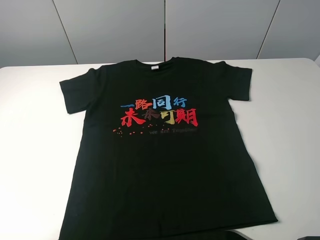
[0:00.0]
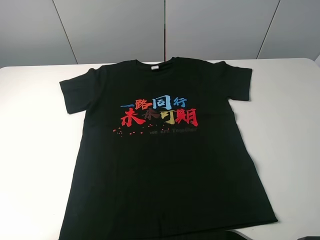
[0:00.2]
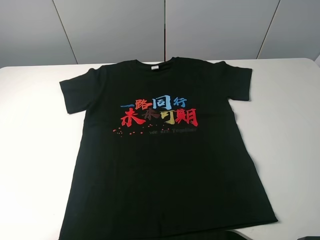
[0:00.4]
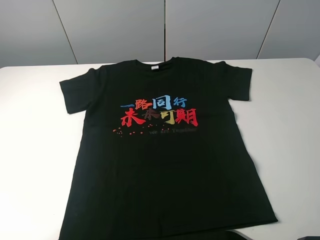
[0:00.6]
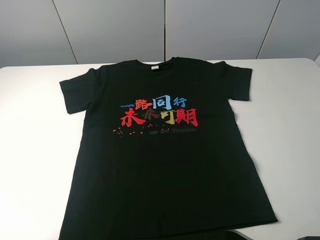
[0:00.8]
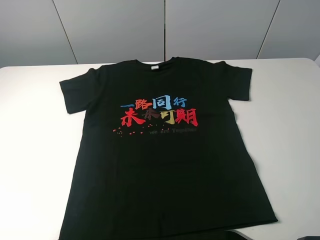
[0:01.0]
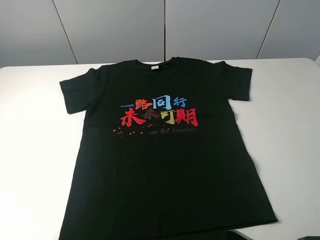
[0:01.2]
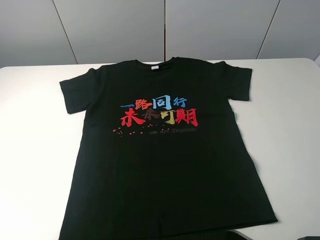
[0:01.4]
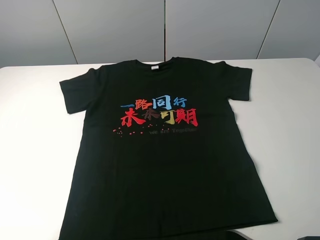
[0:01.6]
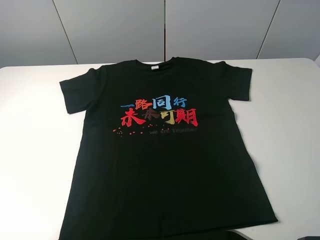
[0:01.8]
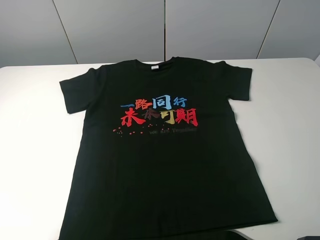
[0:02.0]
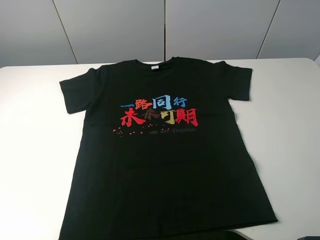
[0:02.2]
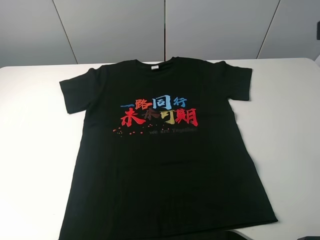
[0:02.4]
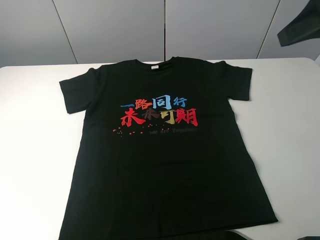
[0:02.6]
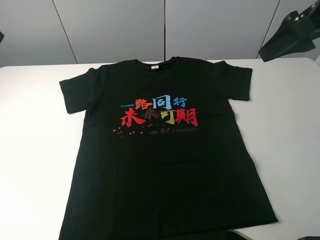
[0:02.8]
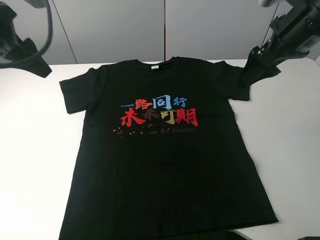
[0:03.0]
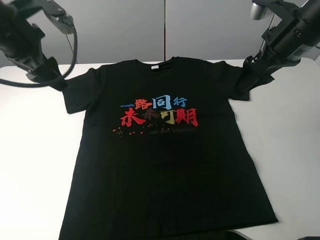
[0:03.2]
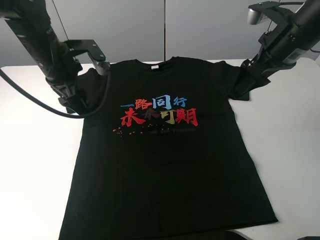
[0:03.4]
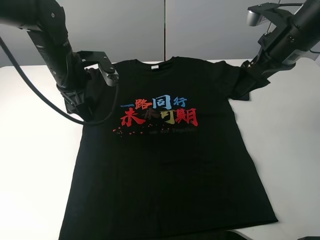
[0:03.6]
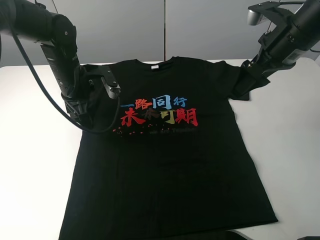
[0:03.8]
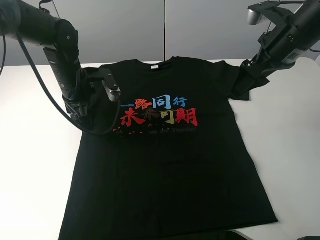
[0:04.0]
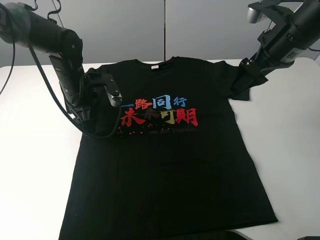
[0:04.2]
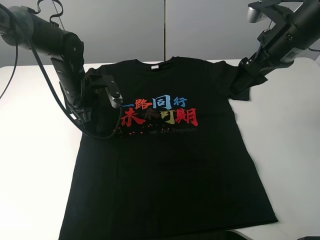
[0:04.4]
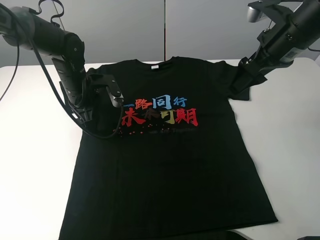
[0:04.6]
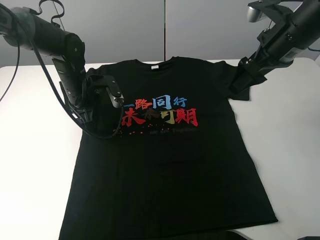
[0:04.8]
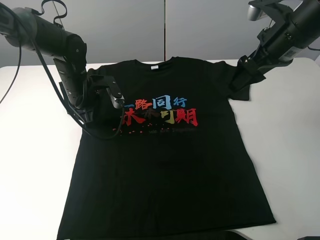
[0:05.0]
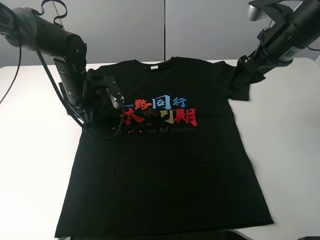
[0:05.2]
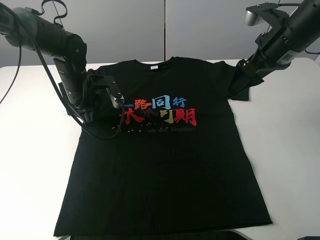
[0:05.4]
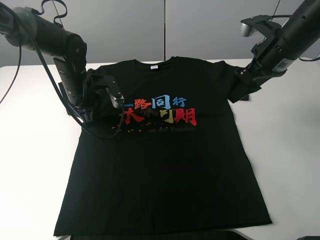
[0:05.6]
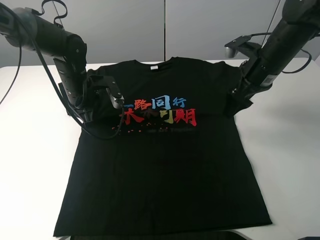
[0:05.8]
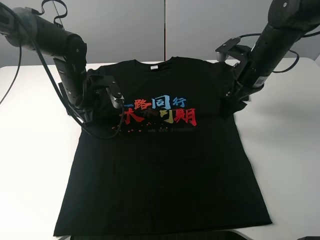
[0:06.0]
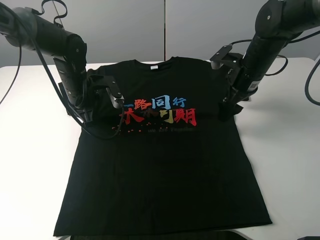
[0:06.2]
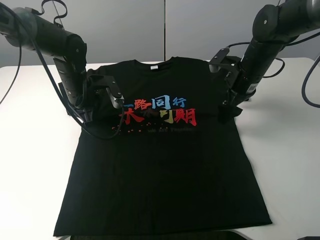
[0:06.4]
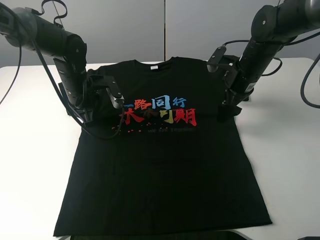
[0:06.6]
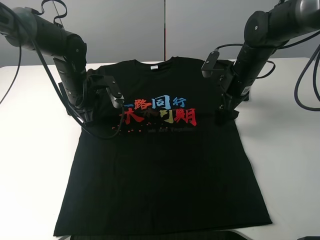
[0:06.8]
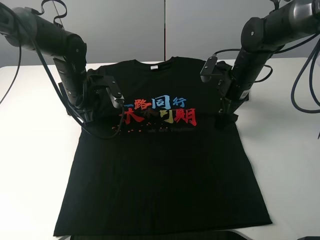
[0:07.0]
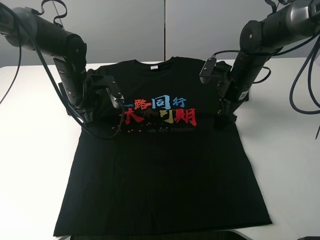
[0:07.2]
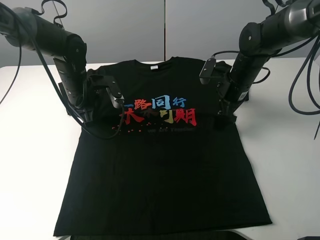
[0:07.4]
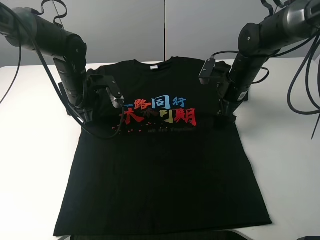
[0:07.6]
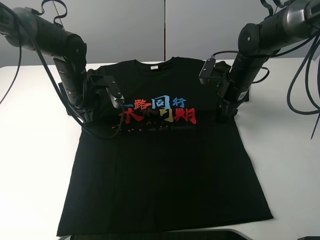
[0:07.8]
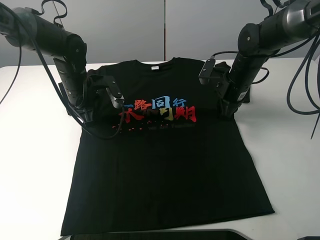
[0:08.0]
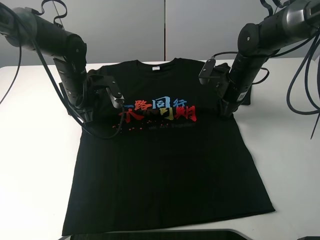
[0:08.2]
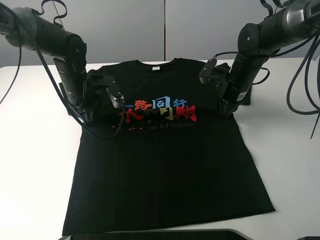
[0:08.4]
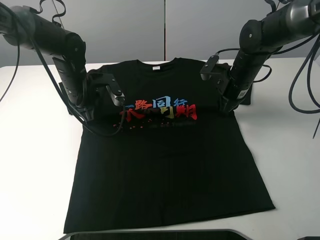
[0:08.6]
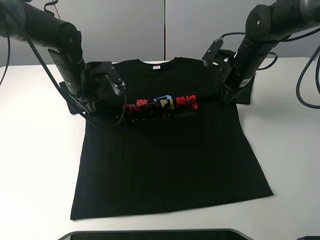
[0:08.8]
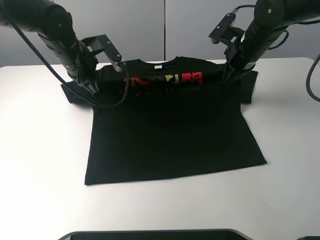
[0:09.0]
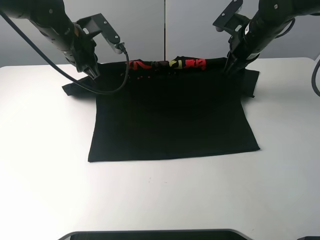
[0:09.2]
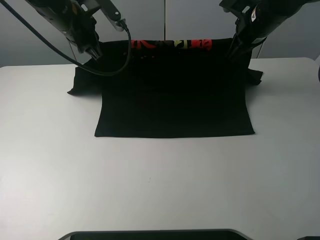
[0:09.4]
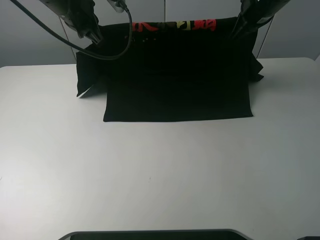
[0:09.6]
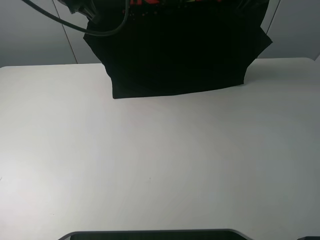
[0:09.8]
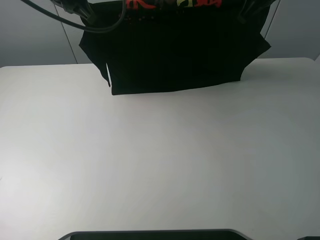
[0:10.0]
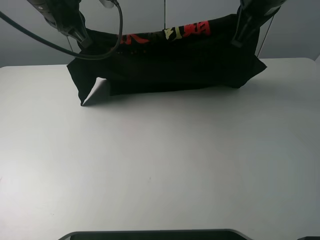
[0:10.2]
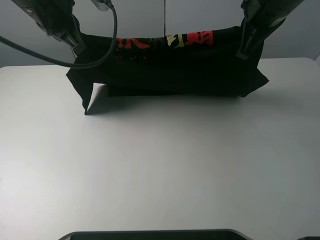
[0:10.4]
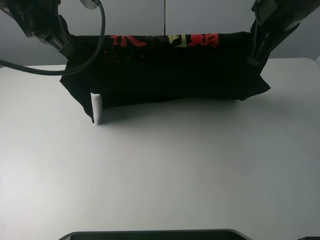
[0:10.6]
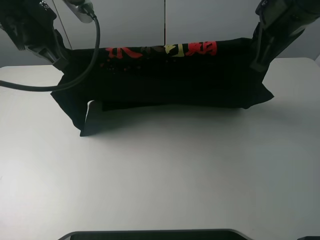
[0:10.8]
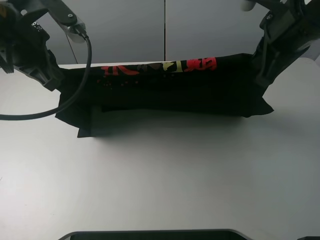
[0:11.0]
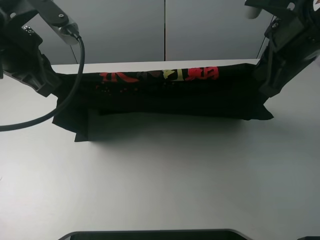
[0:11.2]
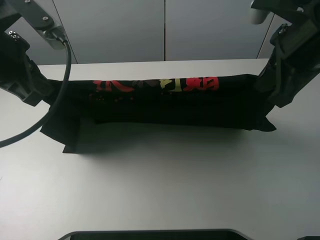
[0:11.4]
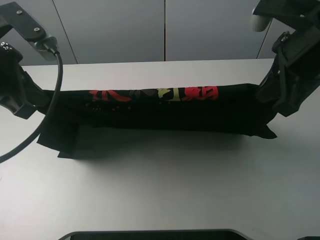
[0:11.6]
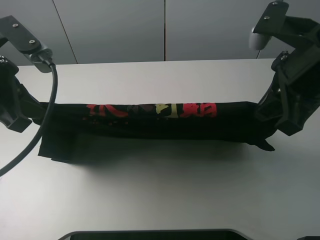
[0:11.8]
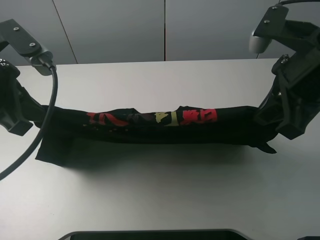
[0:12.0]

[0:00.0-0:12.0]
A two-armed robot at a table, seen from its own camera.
Task of the whole recording: fold the clothes on the table.
Step, 0.0 to 7.4 s: Lift the black T-shirt with the left gripper.
1.6 to 3.0 s: Both grippers travel together forward, about 30 cm.
3.0 to 4.4 s: The left gripper moves downward and to the right, roughly 20 cm.
4.4 to 6.0 s: The right gripper is displaced downward by about 10 cm. The left gripper closes its fingers.
6.0 to 7.6 s: The right gripper heads downward, covering some 5 cm.
7.6 to 9.0 s: Both grippers travel together upward, some 10 cm. The right gripper closes up.
9.0 to 10.4 s: Both grippers move upward and backward, some 15 cm.
10.4 to 12.0 s: The right gripper goes some 15 cm backward. The left gripper is displaced backward and to the left by roughly 15 cm.

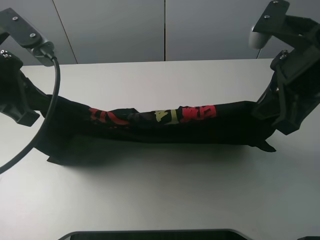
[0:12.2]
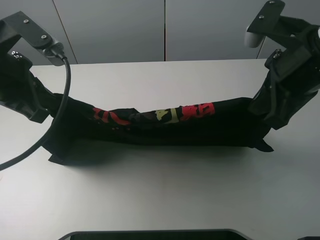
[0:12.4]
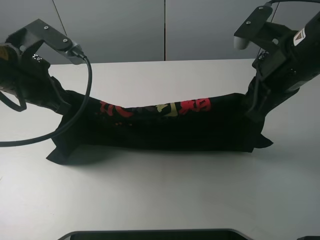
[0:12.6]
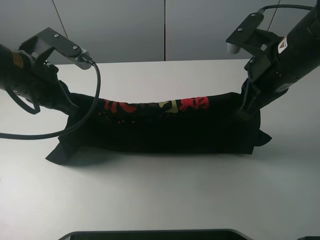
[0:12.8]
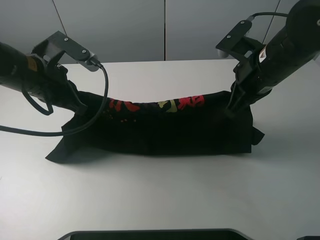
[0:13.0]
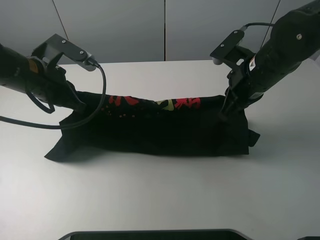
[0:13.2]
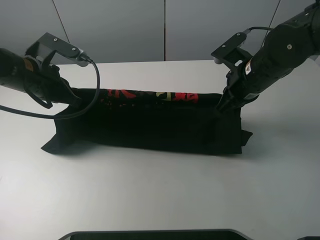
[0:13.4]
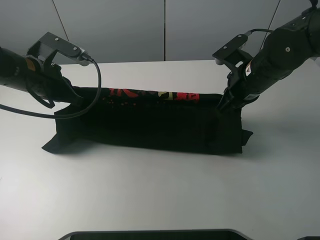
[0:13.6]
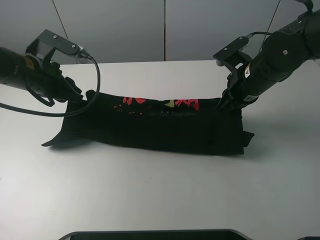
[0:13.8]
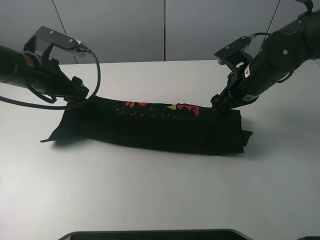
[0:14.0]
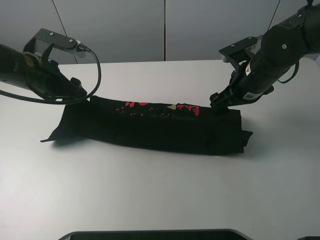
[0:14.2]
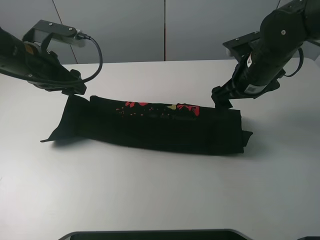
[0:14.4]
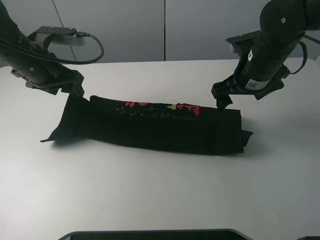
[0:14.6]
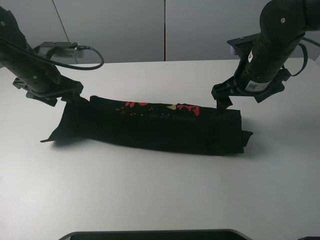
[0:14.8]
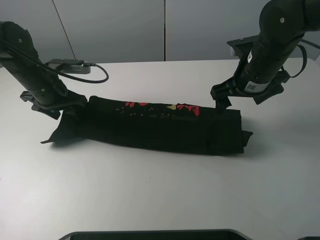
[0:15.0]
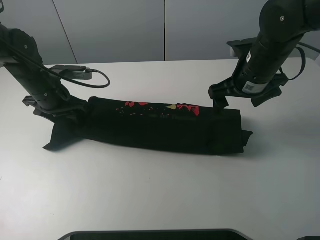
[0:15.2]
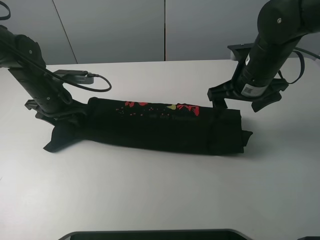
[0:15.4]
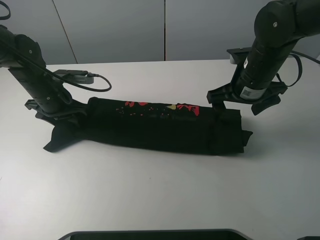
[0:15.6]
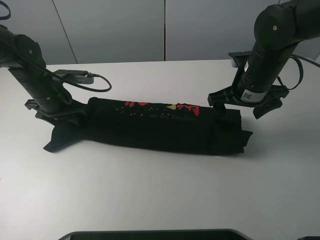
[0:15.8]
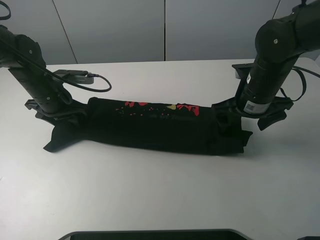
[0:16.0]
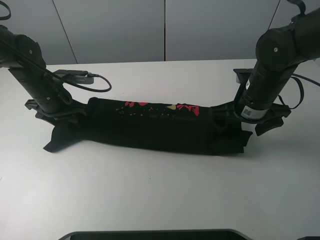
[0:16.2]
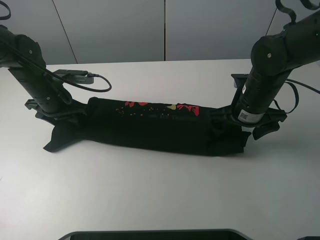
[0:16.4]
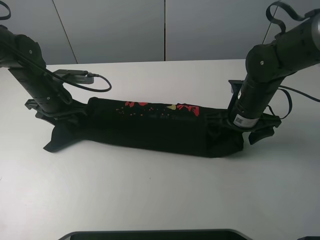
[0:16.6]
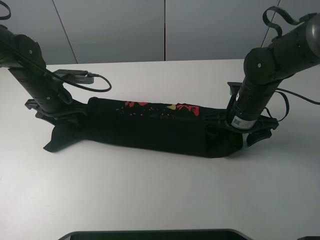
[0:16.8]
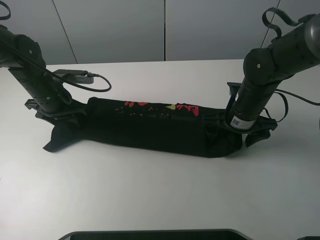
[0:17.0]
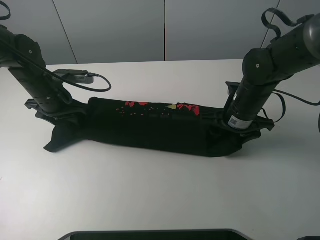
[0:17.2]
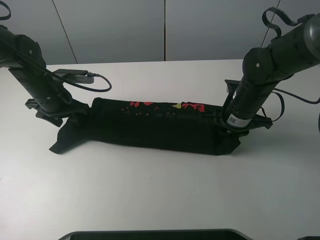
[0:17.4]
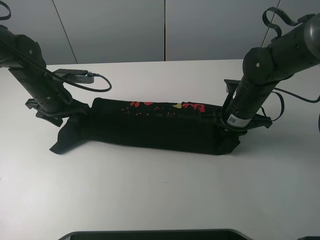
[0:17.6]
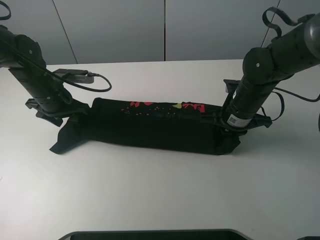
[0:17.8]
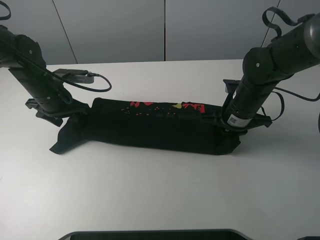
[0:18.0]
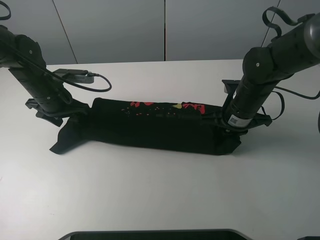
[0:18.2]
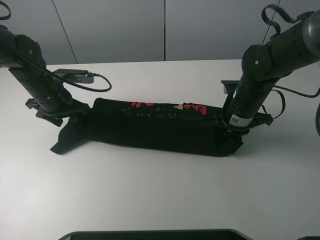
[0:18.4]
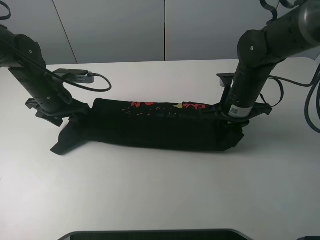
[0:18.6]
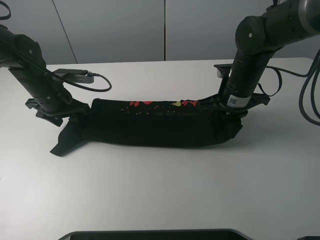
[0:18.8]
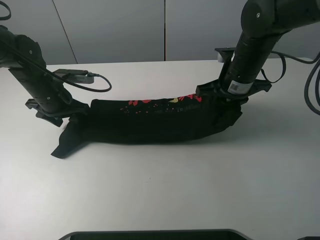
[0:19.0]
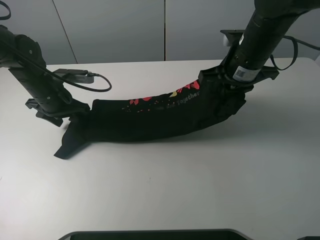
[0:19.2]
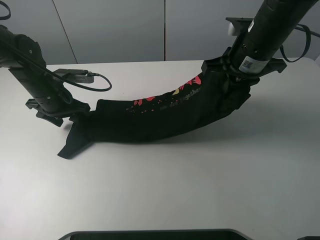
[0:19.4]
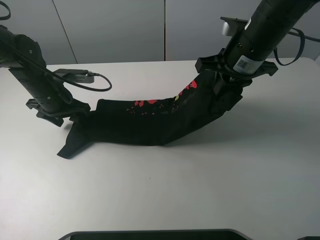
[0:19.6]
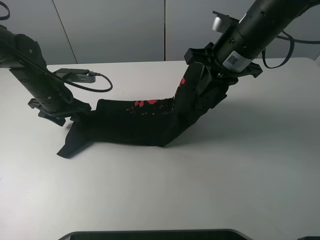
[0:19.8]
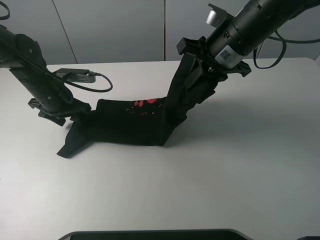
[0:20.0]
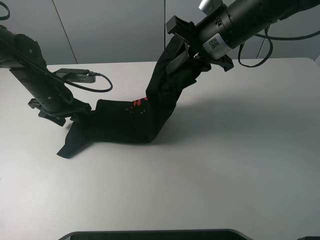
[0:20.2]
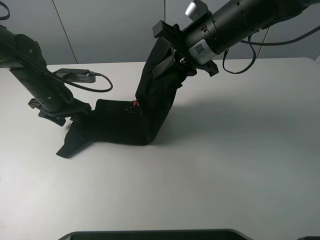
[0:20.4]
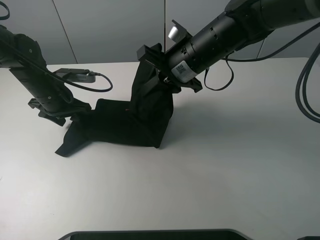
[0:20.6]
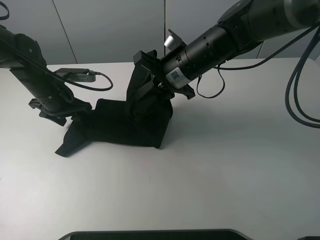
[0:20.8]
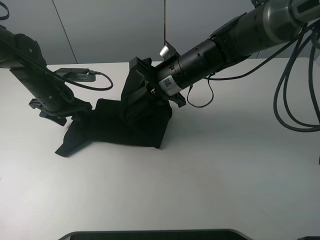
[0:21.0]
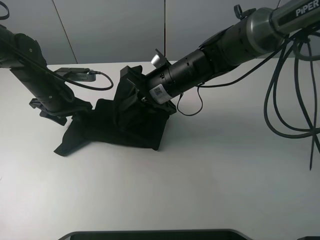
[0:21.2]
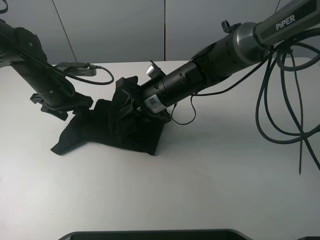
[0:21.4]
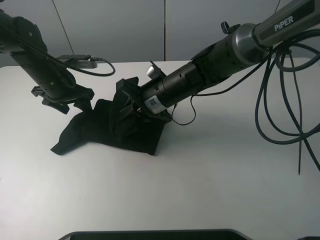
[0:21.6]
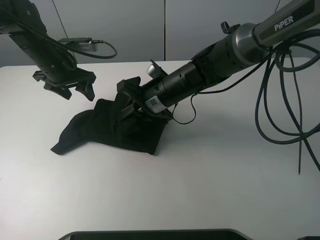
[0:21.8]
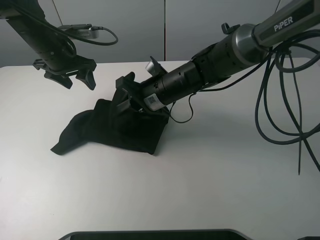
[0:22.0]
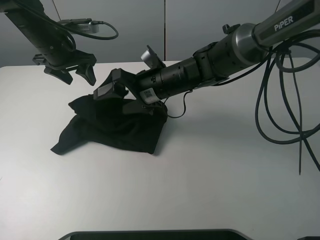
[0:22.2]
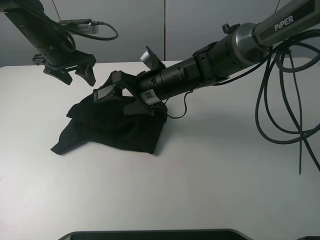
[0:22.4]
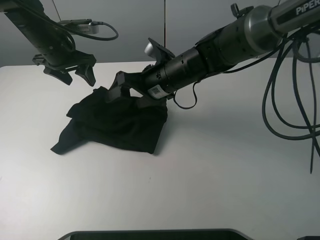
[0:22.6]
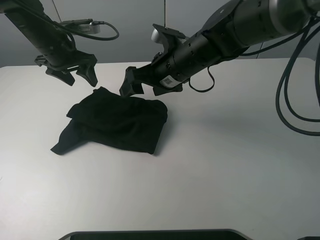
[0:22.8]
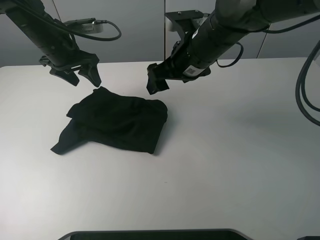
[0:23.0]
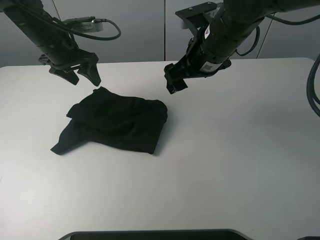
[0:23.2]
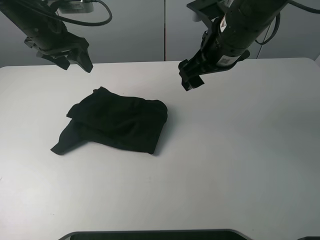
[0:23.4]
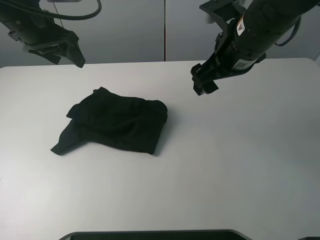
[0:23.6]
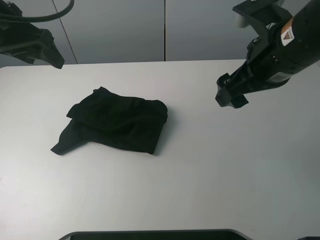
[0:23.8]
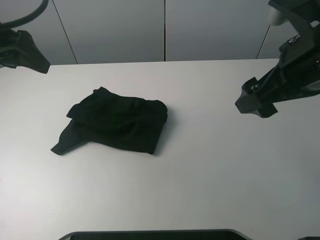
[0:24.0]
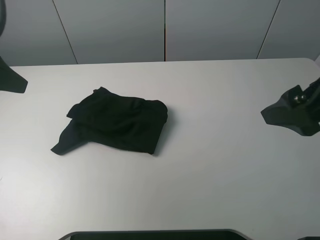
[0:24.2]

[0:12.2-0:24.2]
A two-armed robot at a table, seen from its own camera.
Task of the whole recording: fold the clothes on the table.
Step, 14.2 to 17.4 s: Grasp the black T-shirt with the right gripper.
Step, 17.6 to 22.4 s: Fold the black T-shirt from right to left with right gripper.
12.2 to 13.8 s: The left gripper moves forward and downward, about 15 cm, and opens; the right gripper travels downward and forward by about 15 cm, and opens its fingers.
13.8 to 15.2 s: The left gripper shifts about 5 cm downward. Meanwhile the right gripper opens.
15.2 to 16.6 s: The right gripper moves downward, about 5 cm.
16.6 to 18.2 s: The right gripper closes its fingers.
18.2 to 19.8 s: The right gripper shifts approximately 15 cm upward.
19.8 to 21.2 s: The right gripper is displaced to the left and downward by roughly 15 cm.
21.2 to 22.6 s: The right gripper opens, while the left gripper shifts some 10 cm upward and forward.
22.6 to 24.2 s: The right gripper travels to the right, backward and upward by about 30 cm; the left gripper moves backward and upward, some 25 cm.
